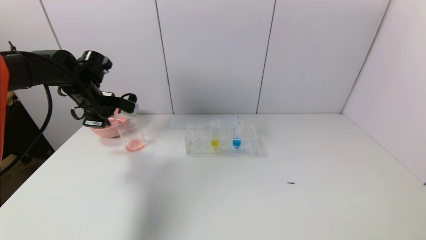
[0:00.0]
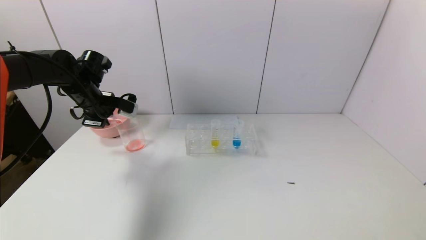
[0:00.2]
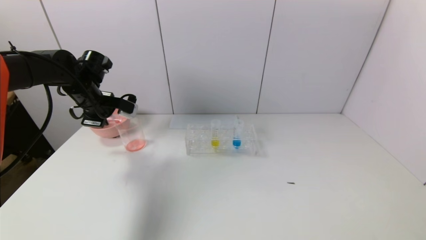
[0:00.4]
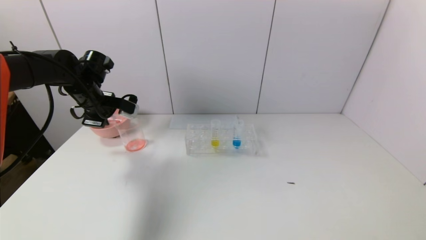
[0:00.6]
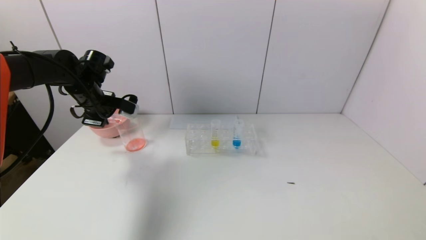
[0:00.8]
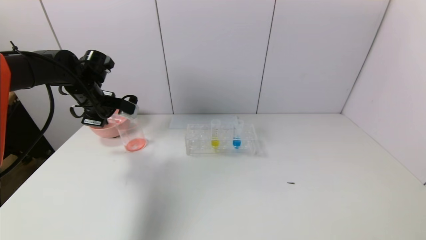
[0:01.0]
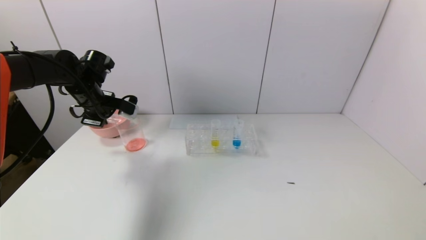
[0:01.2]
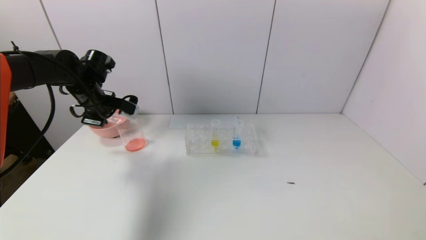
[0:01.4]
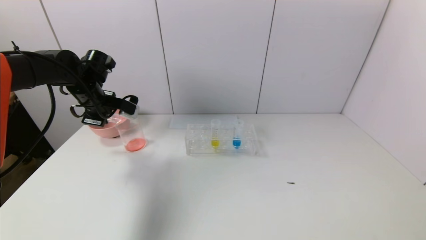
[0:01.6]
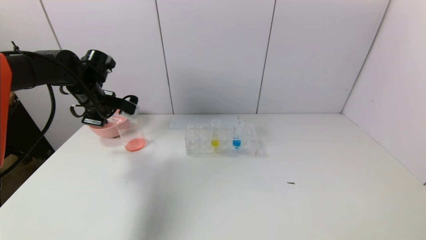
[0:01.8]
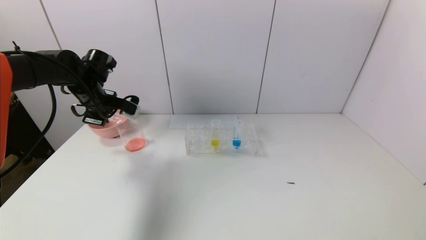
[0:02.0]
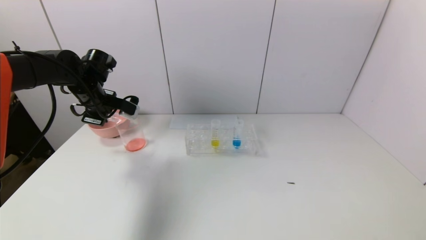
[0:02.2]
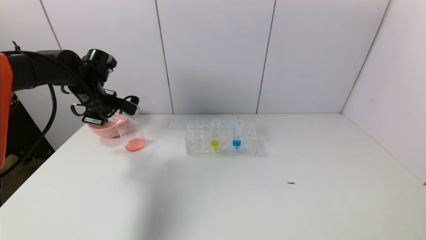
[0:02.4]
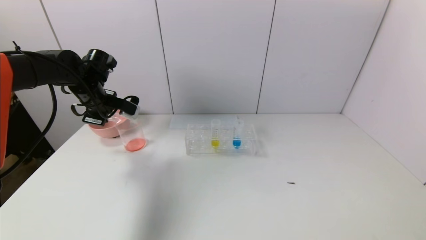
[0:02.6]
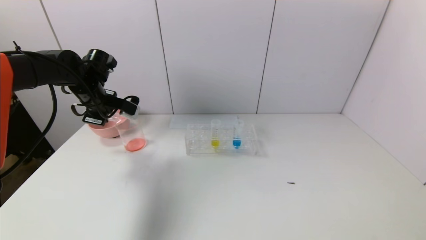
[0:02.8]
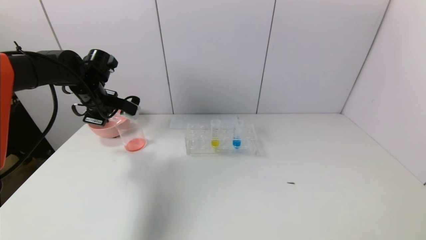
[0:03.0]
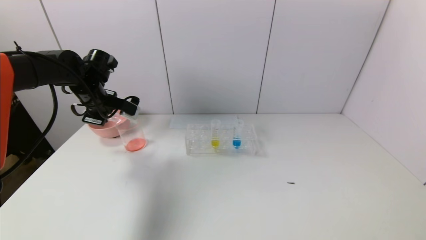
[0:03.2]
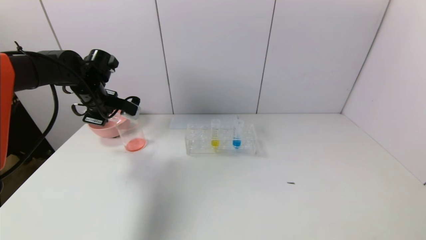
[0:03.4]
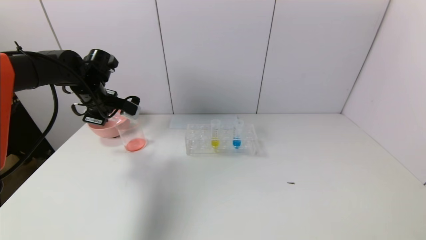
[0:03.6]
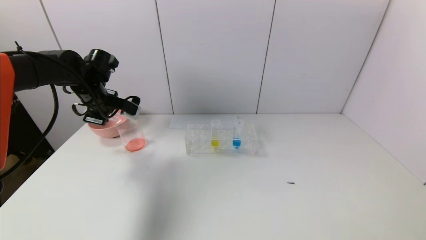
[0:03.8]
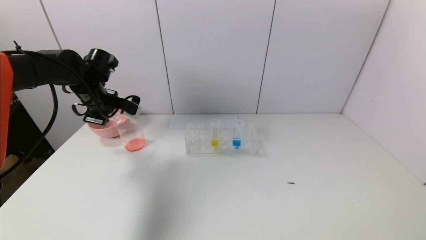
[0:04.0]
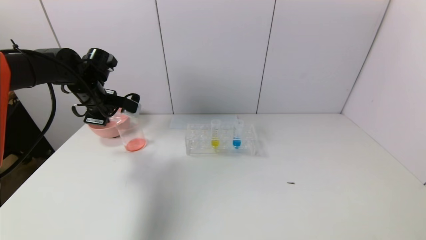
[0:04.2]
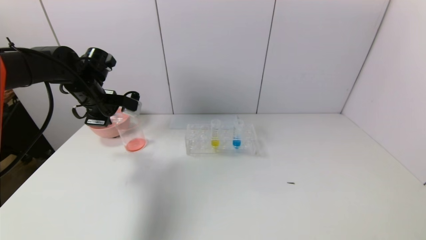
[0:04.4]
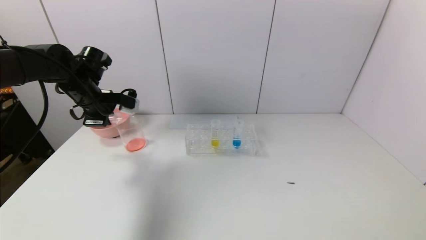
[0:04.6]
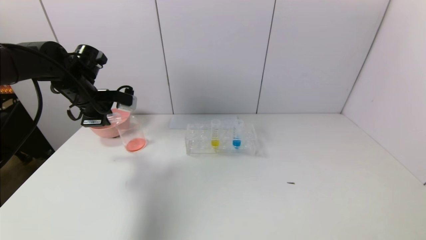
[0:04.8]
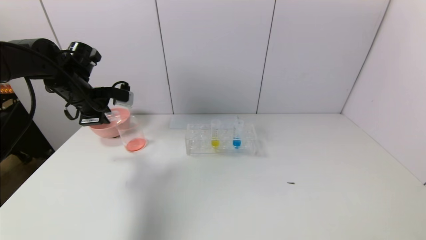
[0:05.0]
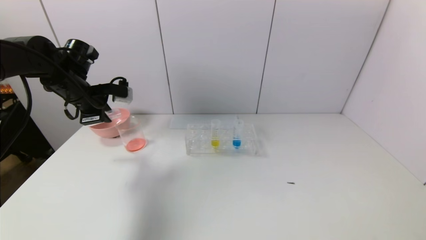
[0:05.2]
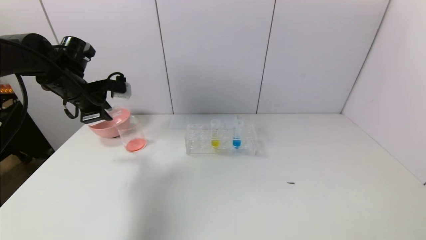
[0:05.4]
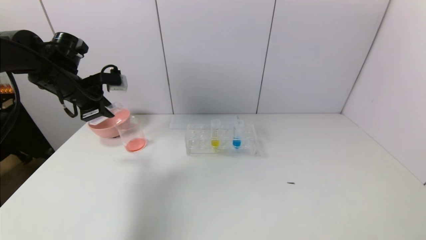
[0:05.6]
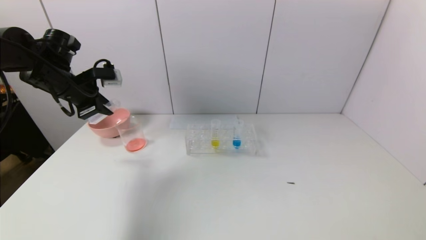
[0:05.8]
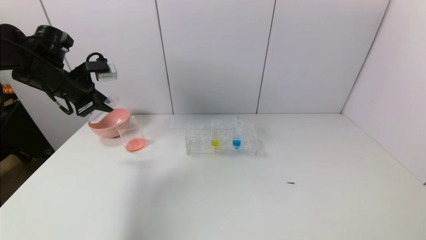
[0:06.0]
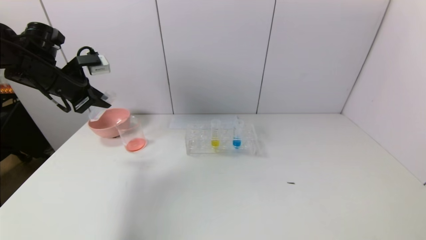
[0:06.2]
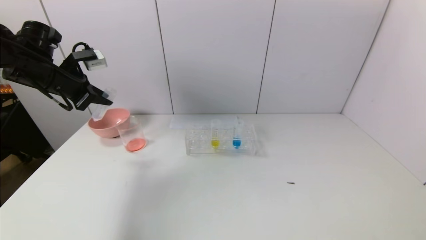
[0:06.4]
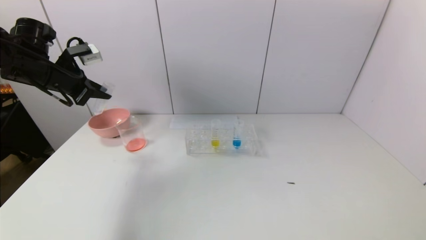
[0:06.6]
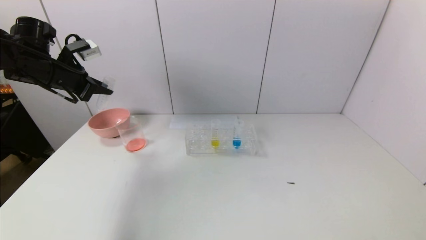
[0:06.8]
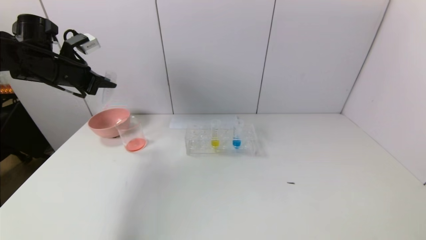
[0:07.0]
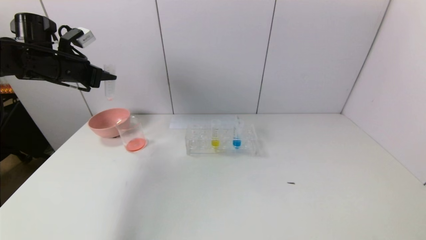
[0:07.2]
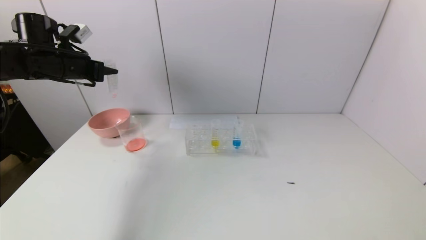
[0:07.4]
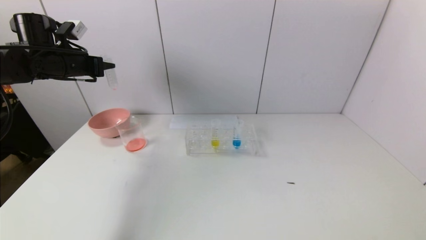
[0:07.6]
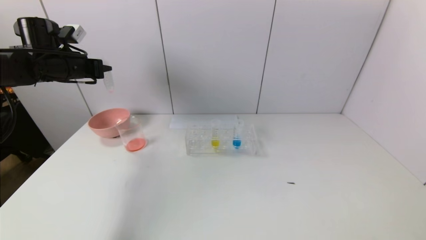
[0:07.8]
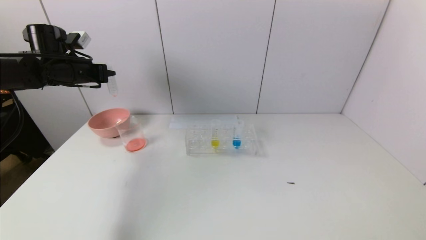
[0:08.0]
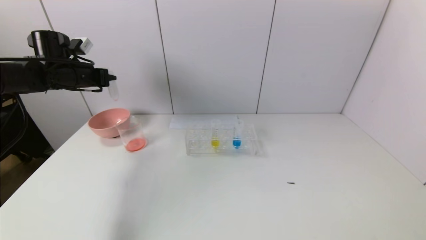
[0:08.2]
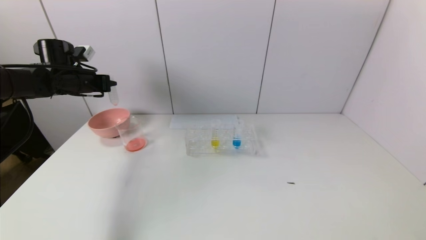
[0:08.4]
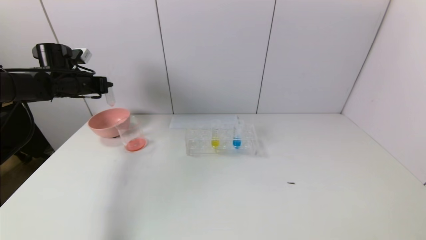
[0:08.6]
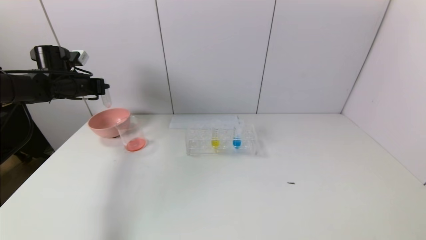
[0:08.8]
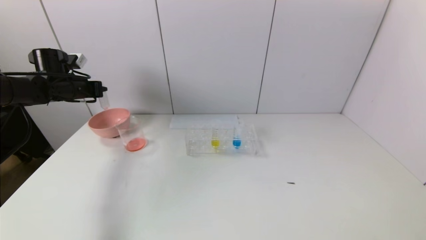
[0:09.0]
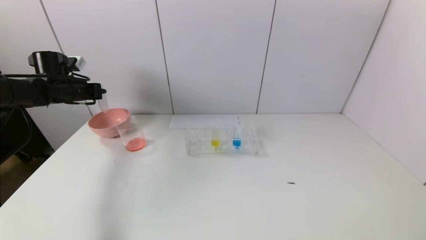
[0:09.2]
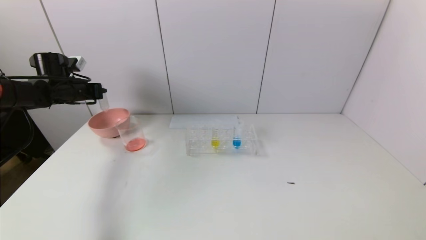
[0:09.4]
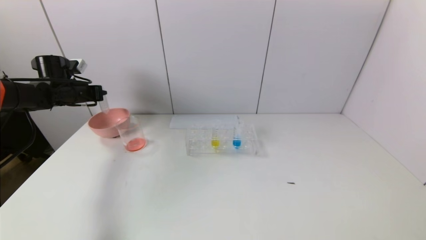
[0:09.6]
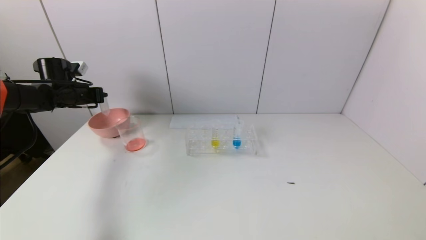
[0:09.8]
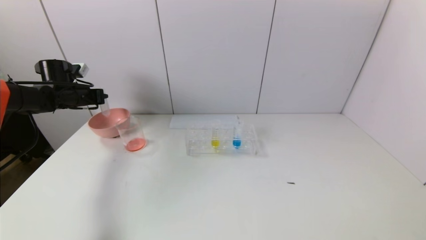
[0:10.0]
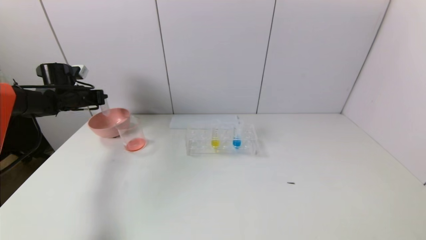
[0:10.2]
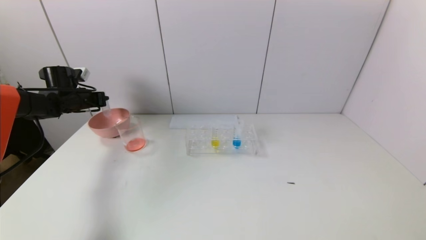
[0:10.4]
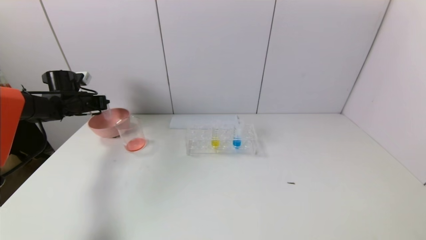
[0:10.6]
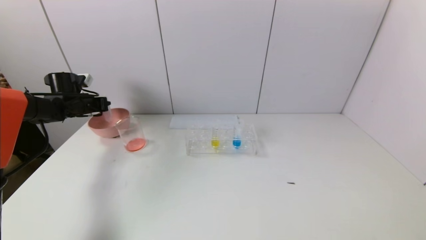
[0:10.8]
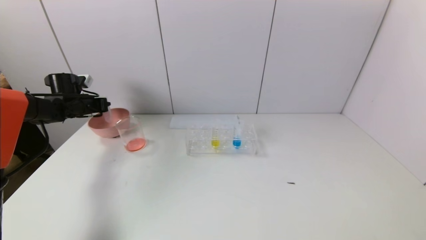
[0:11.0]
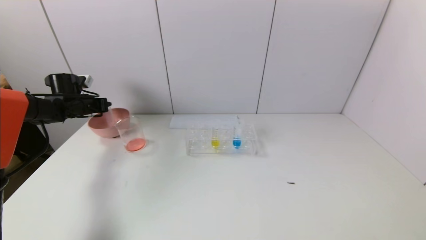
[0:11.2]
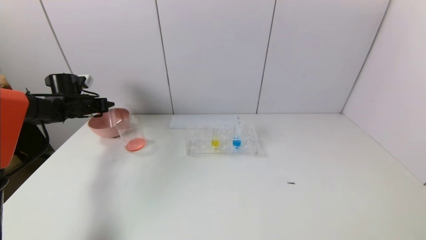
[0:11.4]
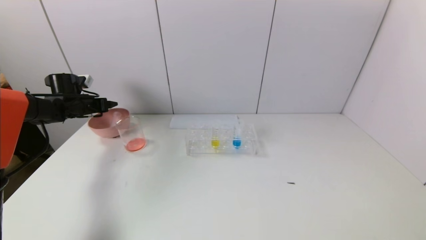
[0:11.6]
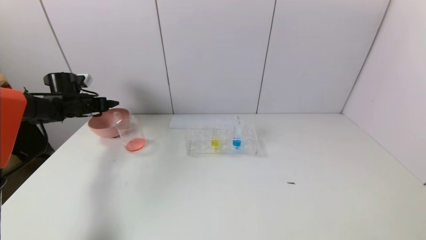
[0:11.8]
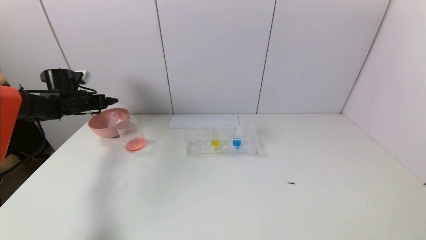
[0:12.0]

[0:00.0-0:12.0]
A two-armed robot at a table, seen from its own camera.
Task of the whole recording: pick up the test tube with yellow pigment and the test tube with red pigment by grippers and pour them into the beaker.
Step, 0:00.0 to 0:04.2: Pour the red reagent into the graduated cylinder with the left gripper.
Step, 0:04.4 to 0:11.4: Place the test tube into the pink bowl with the left gripper.
0:00.0 to 0:01.6: The grippers move only a little.
0:01.6 to 0:03.0: Both grippers stay about where they are.
0:03.0 to 0:04.4: There are only small adjustments of the grippers.
0:04.4 to 0:06.0: The left gripper ends up roughly 5 cm from where it was.
0:06.0 to 0:07.6: The left gripper changes place by about 5 cm.
0:07.6 to 0:09.0: The left gripper heads downward, covering roughly 10 cm.
0:09.0 to 0:10.4: The left gripper moves roughly 5 cm.
0:10.4 to 0:12.0: The left gripper opens.

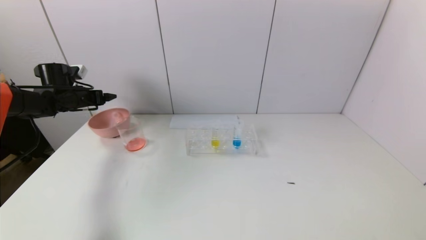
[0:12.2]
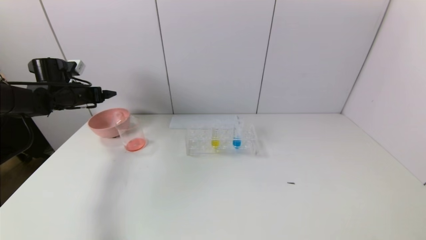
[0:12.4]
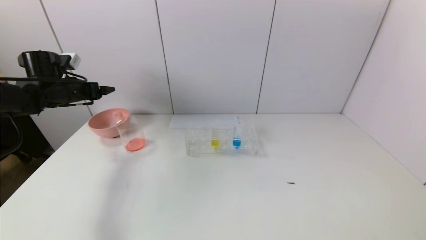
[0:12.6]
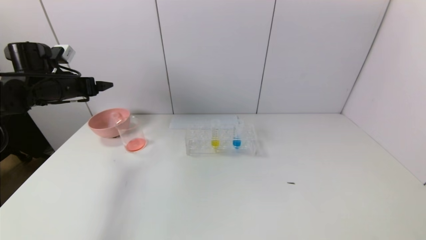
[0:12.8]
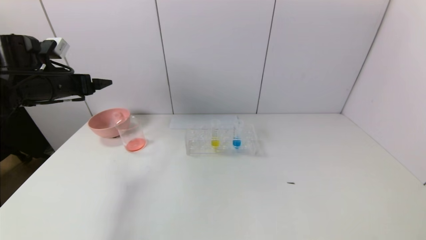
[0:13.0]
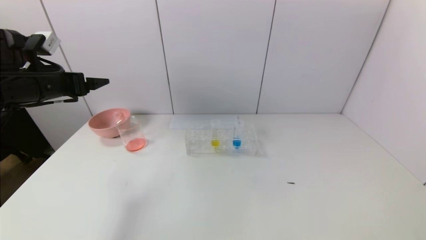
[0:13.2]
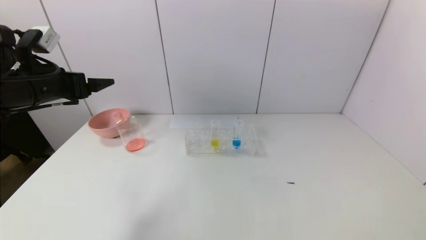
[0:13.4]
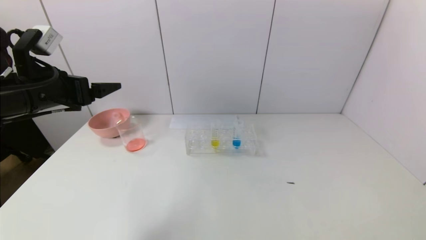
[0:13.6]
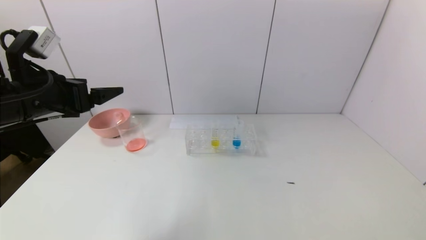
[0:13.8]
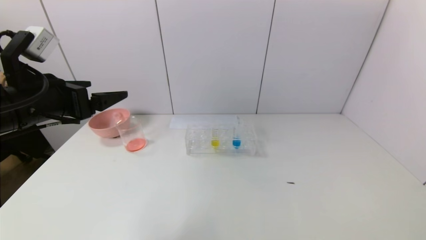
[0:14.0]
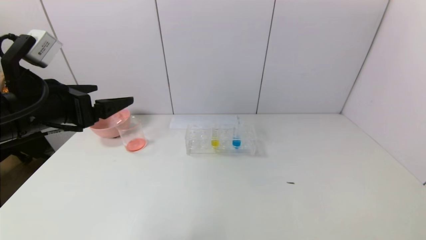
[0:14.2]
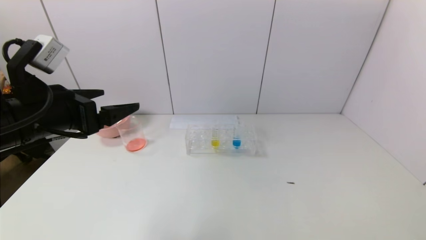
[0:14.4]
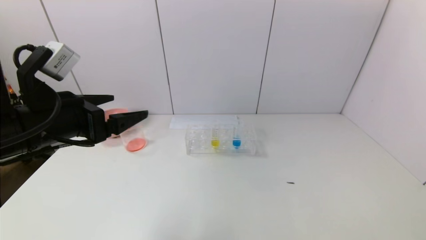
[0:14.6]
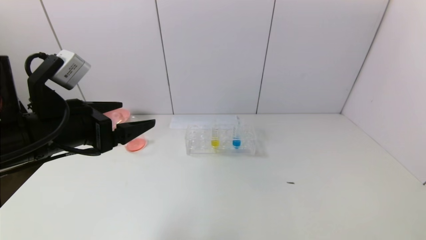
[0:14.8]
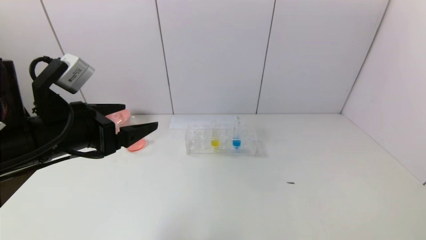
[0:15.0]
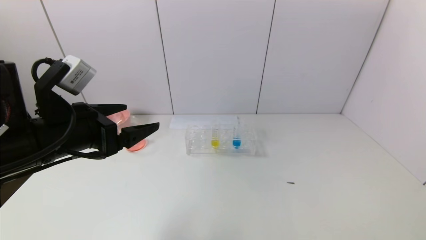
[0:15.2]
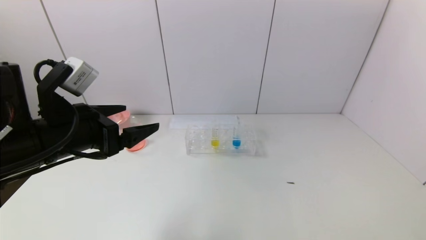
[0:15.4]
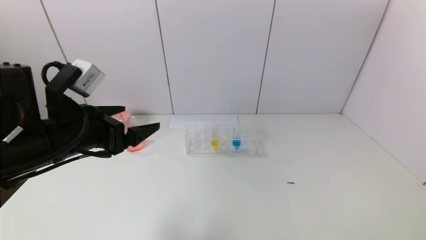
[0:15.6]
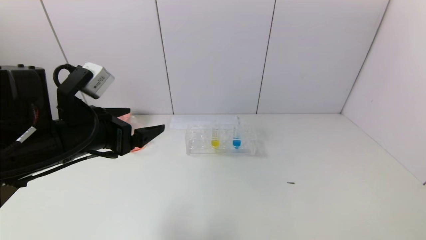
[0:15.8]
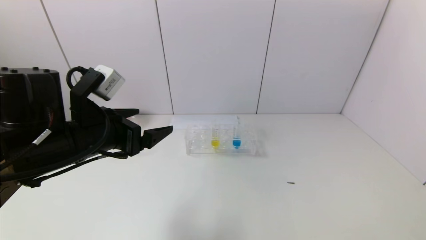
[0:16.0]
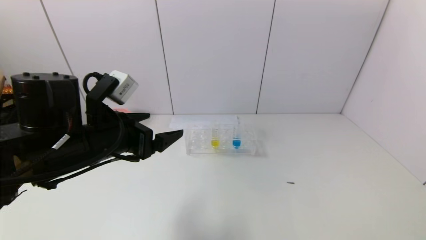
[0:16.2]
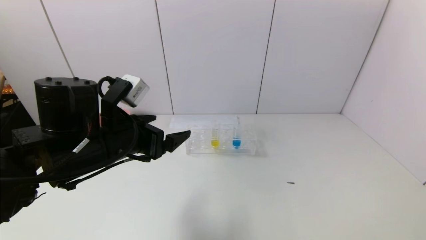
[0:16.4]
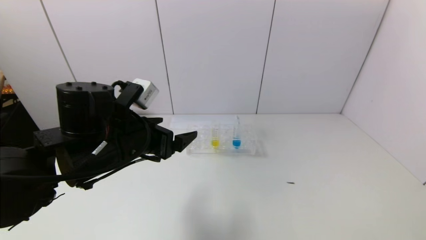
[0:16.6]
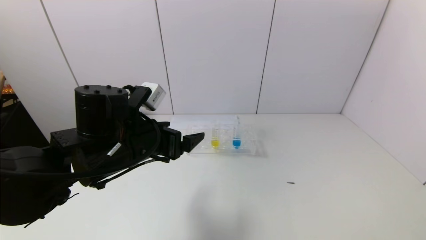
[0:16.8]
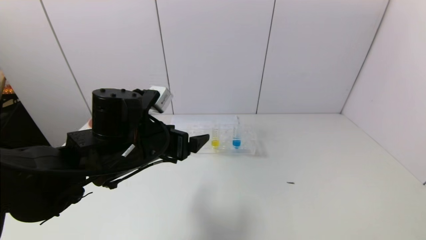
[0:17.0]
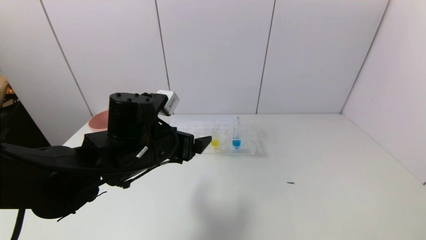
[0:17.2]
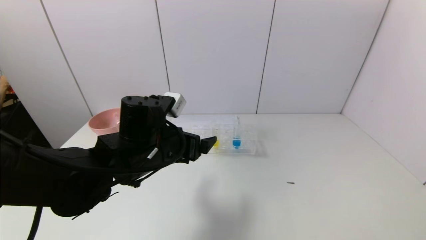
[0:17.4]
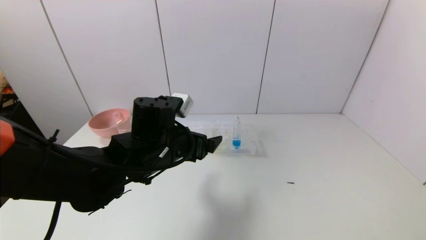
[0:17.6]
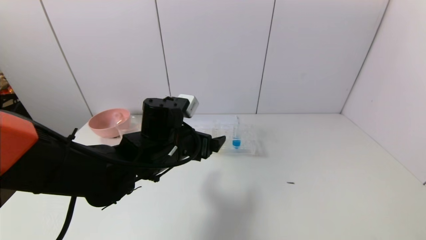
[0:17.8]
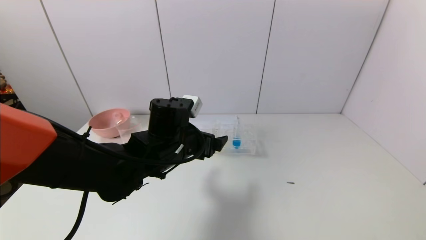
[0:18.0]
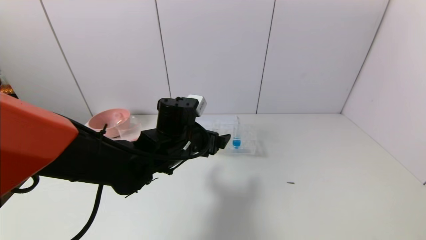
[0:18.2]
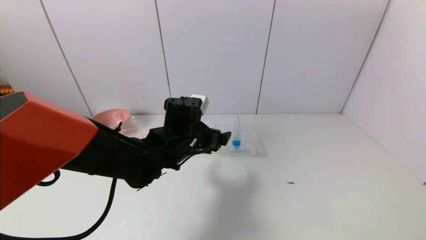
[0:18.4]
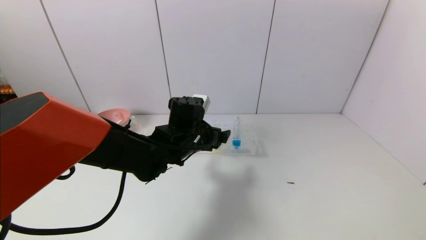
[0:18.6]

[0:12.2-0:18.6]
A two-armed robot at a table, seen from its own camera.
Task of the whole recording: pick up the test tube with yellow pigment and the test tube with red pigment by grippers and pour them into the beaker.
0:12.2 to 0:13.8: The left gripper goes approximately 25 cm backward, to the right and upward.
0:13.8 to 0:15.4: The left gripper heads to the right, covering roughly 5 cm.
0:15.4 to 0:17.0: The left gripper moves to the right and downward, approximately 10 cm.
0:17.0 to 0:18.6: The left gripper moves forward, to the right and downward, approximately 10 cm.
